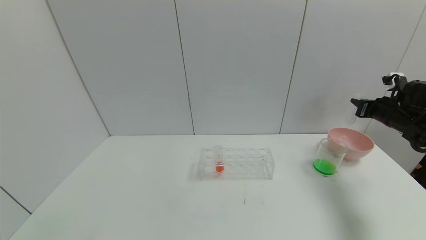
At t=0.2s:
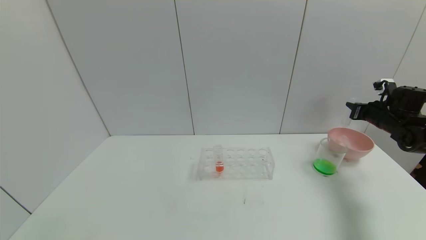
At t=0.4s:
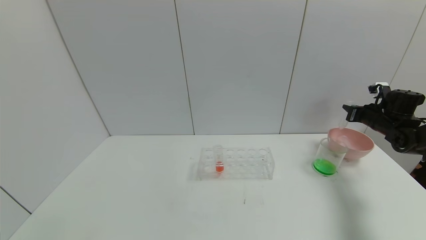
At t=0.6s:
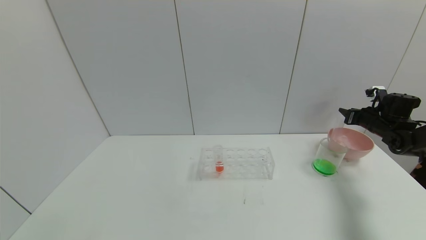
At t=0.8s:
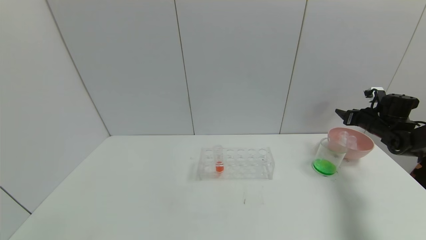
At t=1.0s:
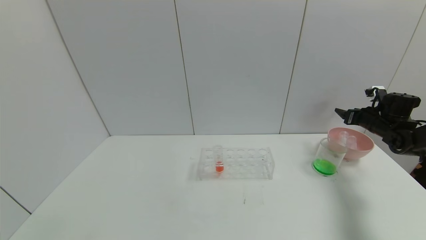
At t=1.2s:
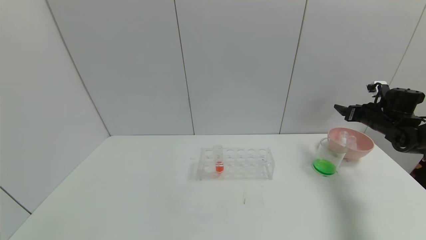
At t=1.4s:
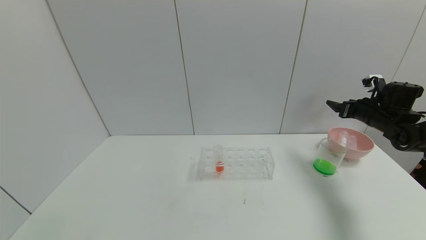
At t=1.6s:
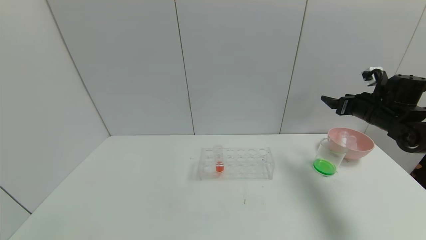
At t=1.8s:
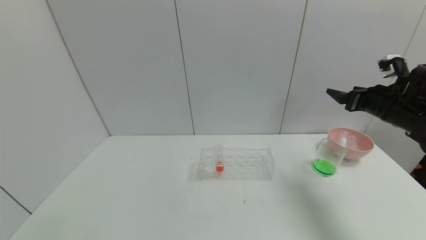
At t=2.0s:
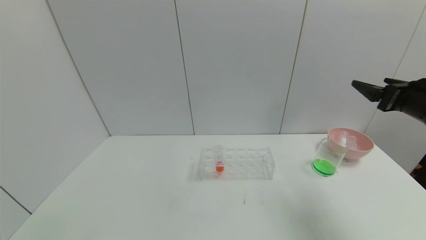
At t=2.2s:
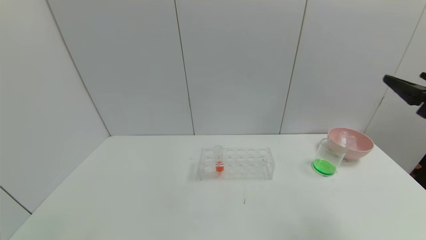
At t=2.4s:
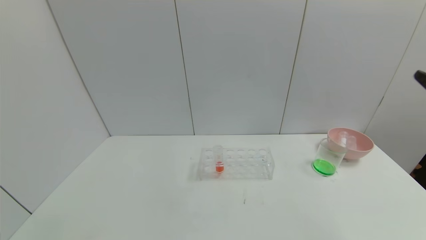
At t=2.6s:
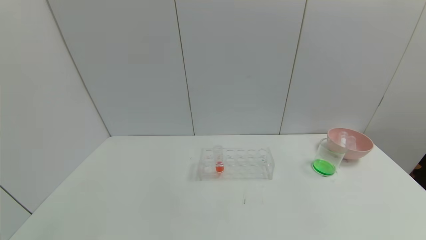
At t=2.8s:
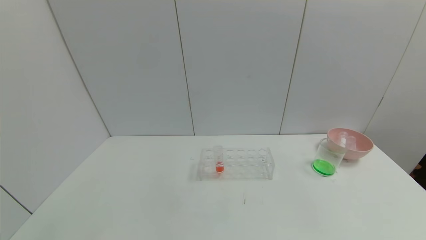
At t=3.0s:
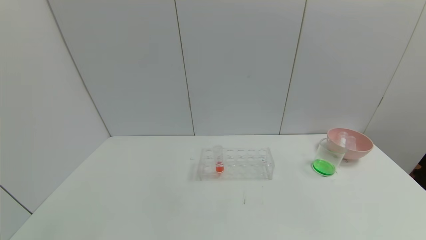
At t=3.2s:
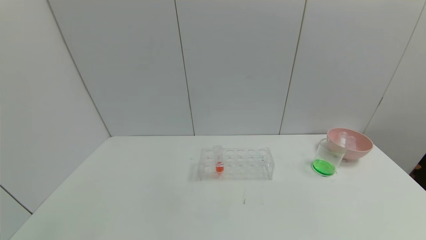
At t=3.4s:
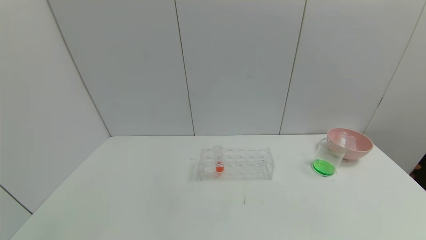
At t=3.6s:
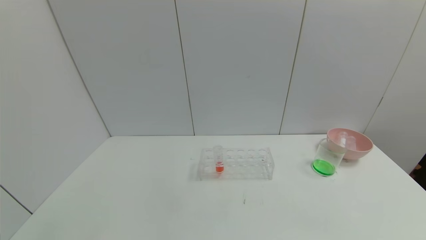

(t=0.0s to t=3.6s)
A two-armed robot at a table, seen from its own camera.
Task of the whole recording: pick up the test tube with yellow pigment and the test tube with blue pigment by grippers and pour them into the beaker.
t=0.0s - t=1.8s: The right gripper heads to the left, backward and upward, covering approximately 10 cm, and opens up.
t=1.8s - t=3.6s: The right gripper heads backward, covering approximately 40 cm.
